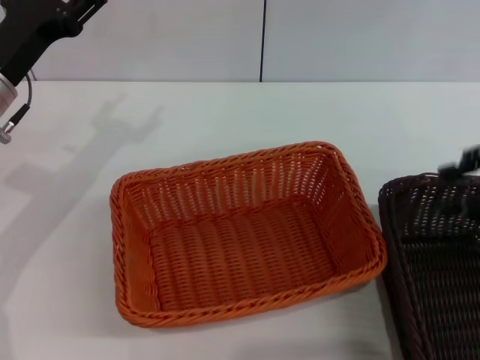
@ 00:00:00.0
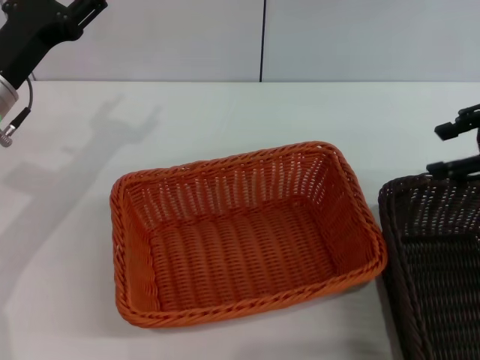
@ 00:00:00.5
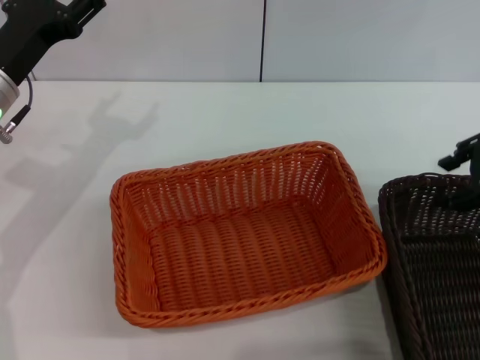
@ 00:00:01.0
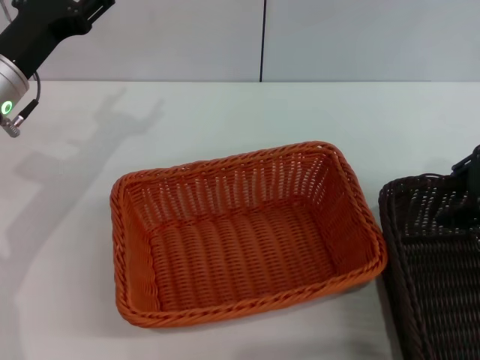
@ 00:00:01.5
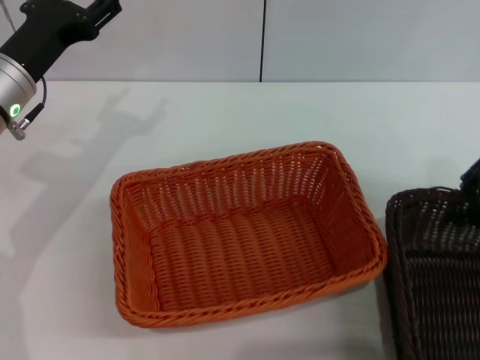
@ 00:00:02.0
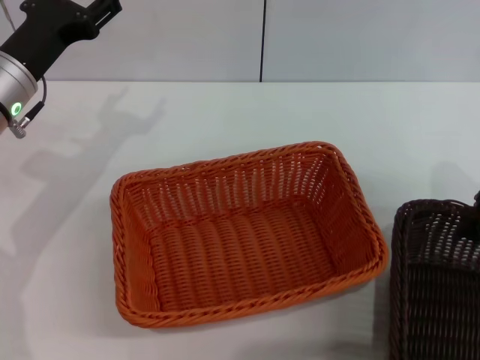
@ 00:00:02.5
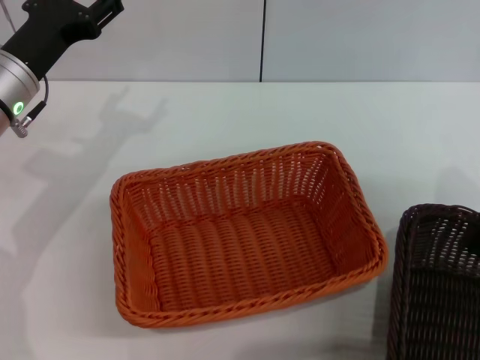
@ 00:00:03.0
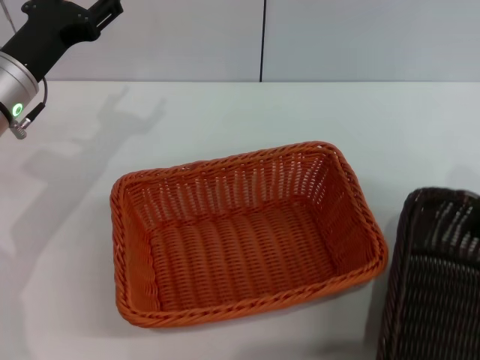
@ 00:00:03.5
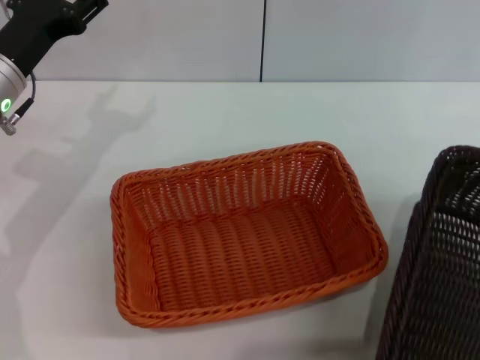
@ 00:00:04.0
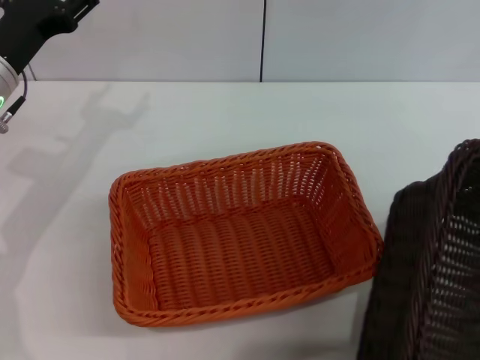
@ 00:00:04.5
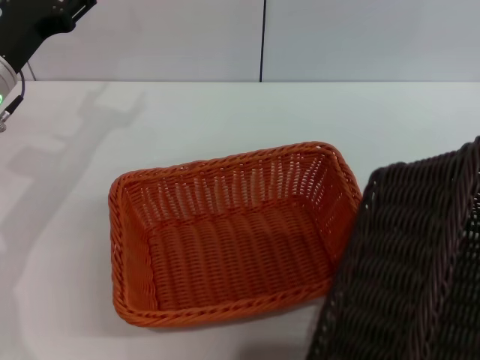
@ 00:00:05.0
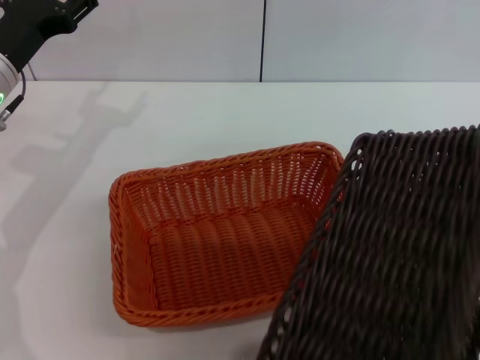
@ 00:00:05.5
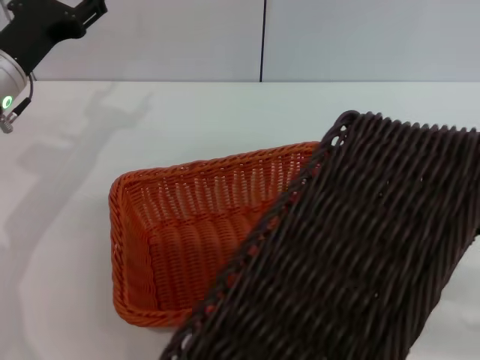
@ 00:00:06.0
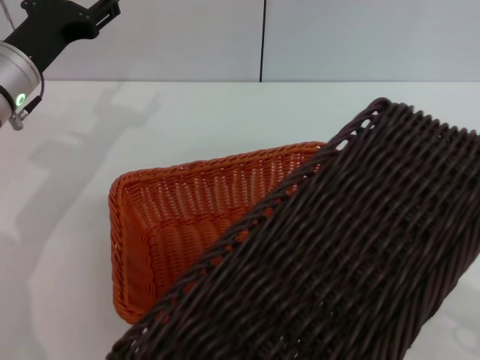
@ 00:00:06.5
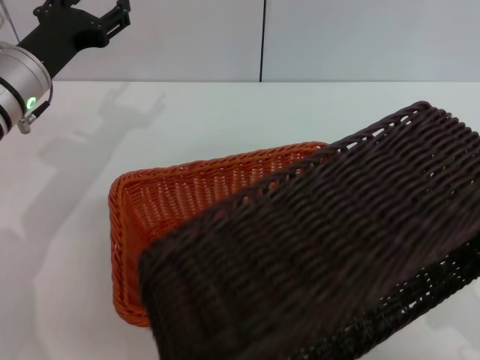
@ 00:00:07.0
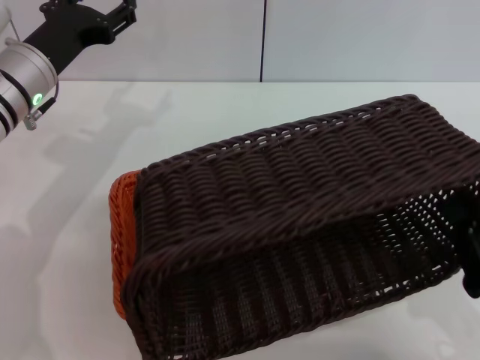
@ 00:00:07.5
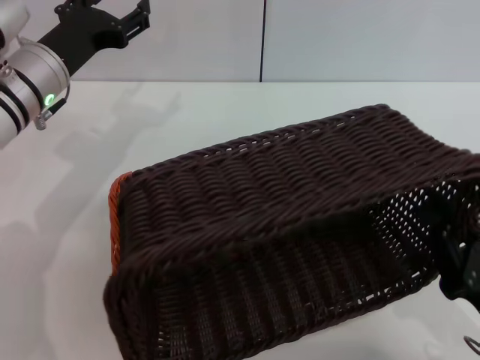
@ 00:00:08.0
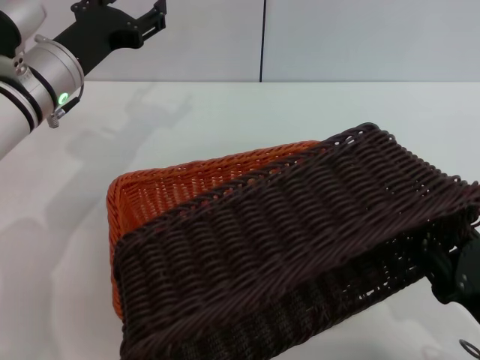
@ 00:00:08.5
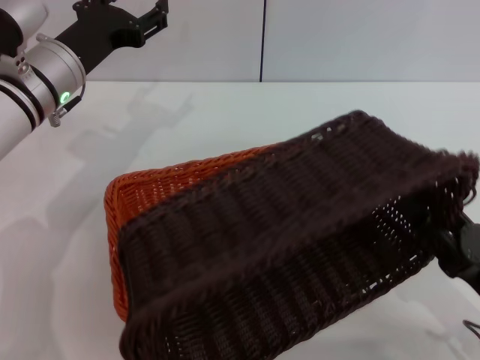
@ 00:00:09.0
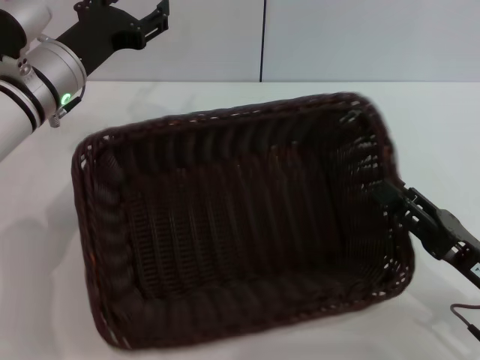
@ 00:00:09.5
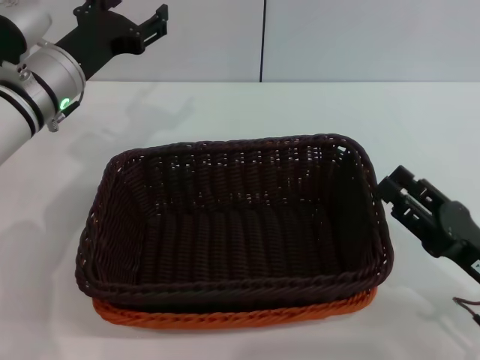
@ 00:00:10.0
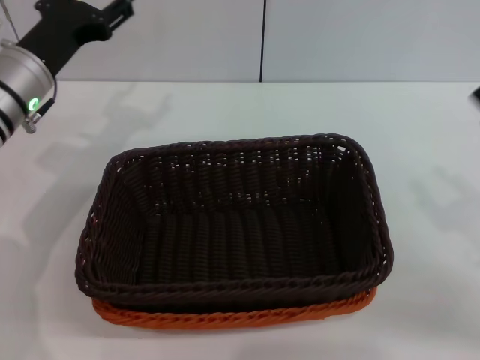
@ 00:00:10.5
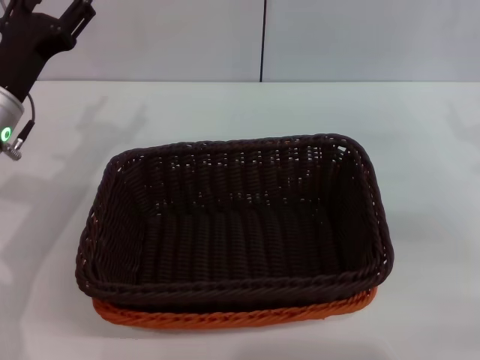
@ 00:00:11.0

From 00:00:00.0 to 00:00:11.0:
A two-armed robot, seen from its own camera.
Step, from 00:00:00.0 to 00:00:03.5: Pick up the dark basket with the right gripper.
Step, from 00:00:04.0 to 00:00:09.5: Place the dark basket on the light basket with the right gripper.
From 00:00:00.0 to 00:00:02.0: The right gripper shifts approximately 5 cm forward, and closes.
From 00:00:02.0 to 00:00:03.5: The right gripper closes its fingers.
From 00:00:03.5 to 00:00:05.5: The right gripper heads backward, covering approximately 10 cm.
From 00:00:05.5 to 00:00:07.5: The right gripper moves downward, backward and to the left, roughly 20 cm.
From 00:00:07.5 to 00:00:09.0: The right gripper opens its fingers.
From 00:00:09.0 to 00:00:11.0: The right gripper shifts some 20 cm forward, upward and to the right, while the left gripper moves backward, roughly 5 cm.

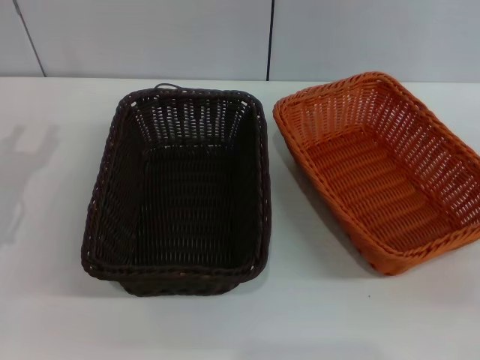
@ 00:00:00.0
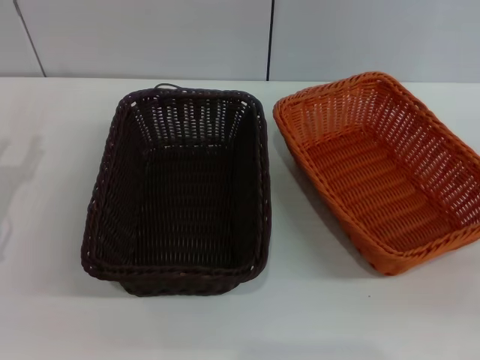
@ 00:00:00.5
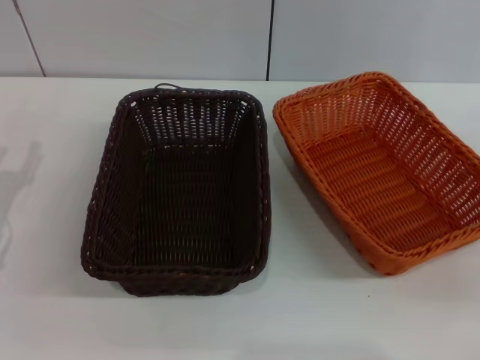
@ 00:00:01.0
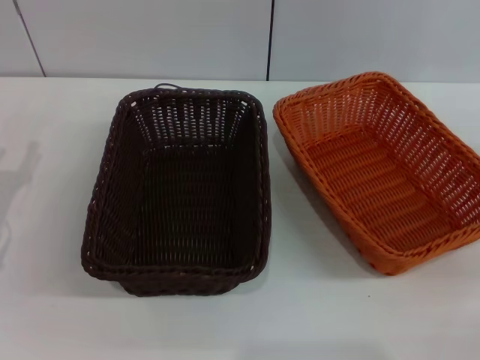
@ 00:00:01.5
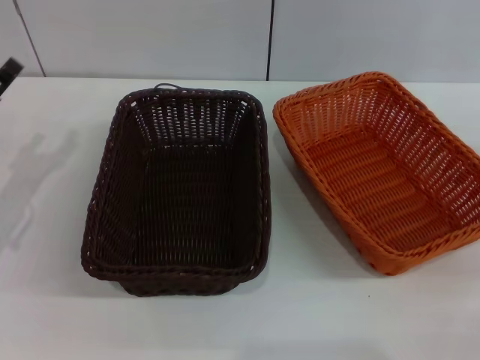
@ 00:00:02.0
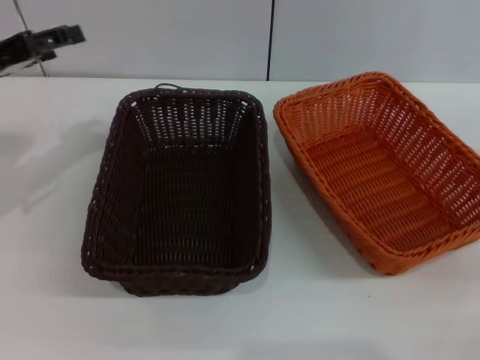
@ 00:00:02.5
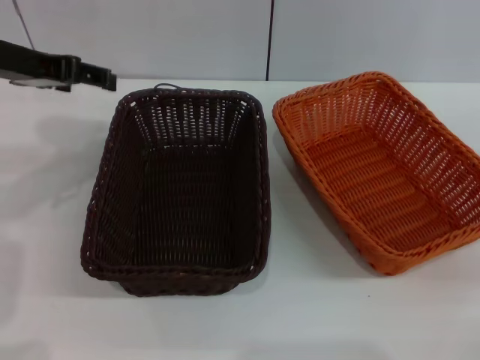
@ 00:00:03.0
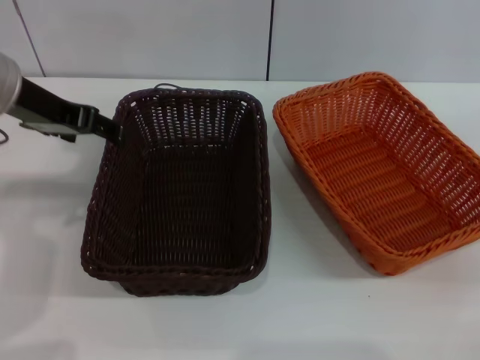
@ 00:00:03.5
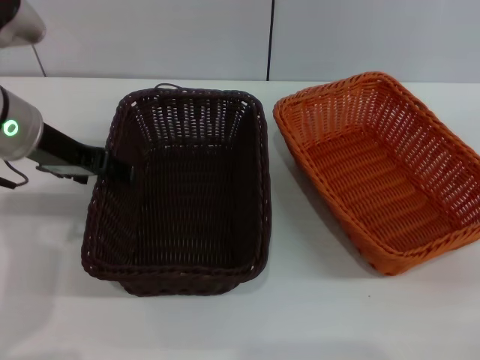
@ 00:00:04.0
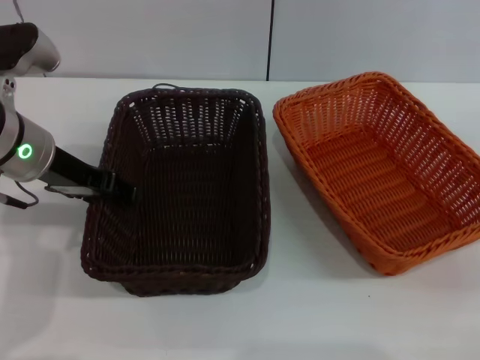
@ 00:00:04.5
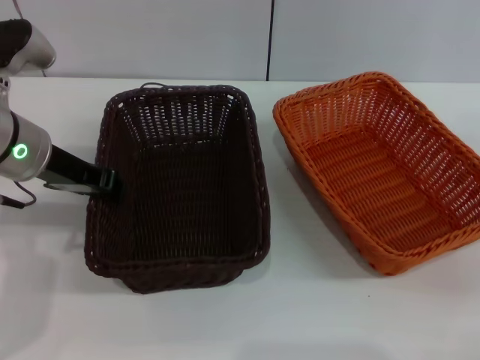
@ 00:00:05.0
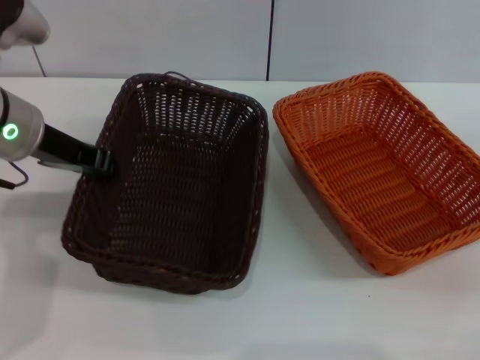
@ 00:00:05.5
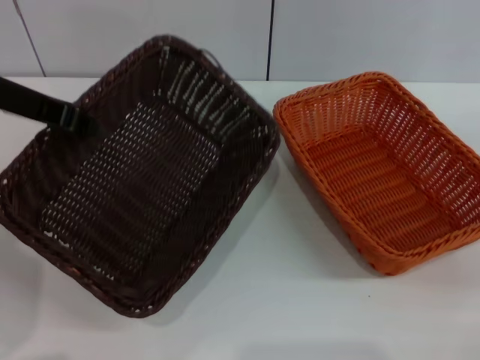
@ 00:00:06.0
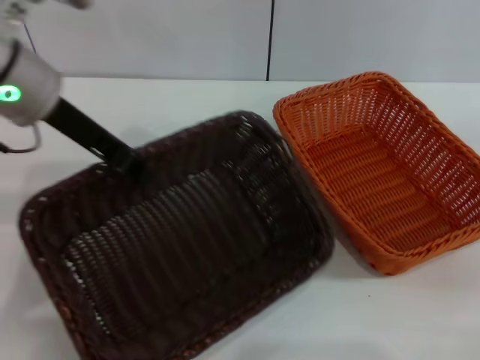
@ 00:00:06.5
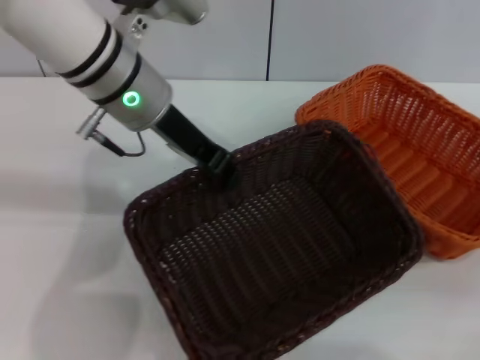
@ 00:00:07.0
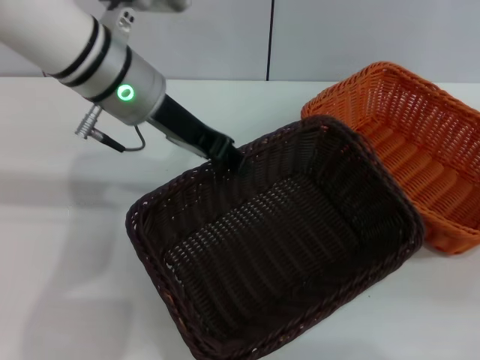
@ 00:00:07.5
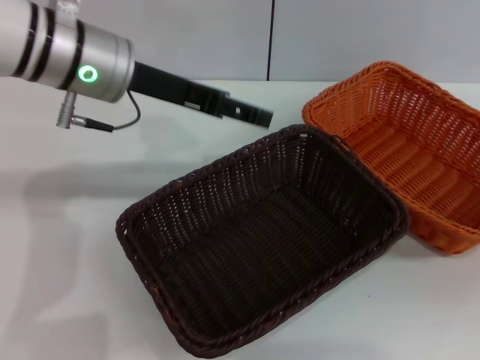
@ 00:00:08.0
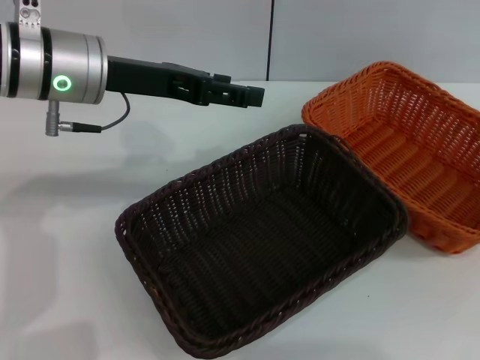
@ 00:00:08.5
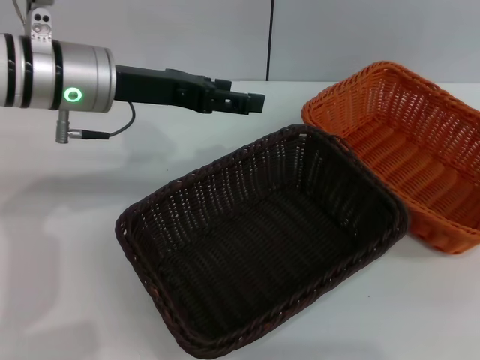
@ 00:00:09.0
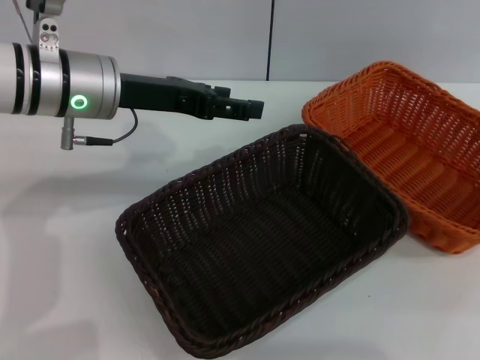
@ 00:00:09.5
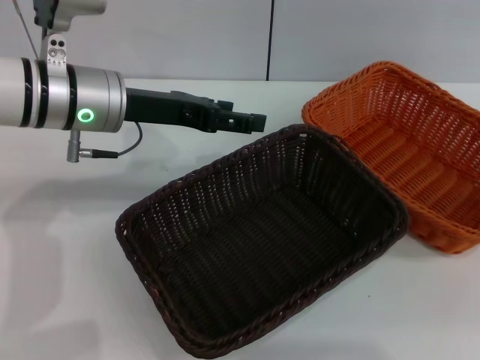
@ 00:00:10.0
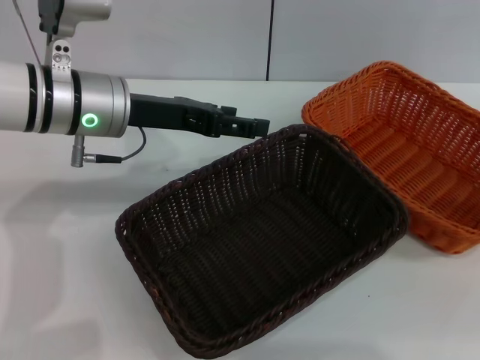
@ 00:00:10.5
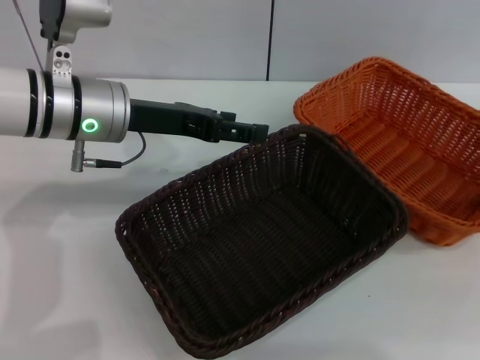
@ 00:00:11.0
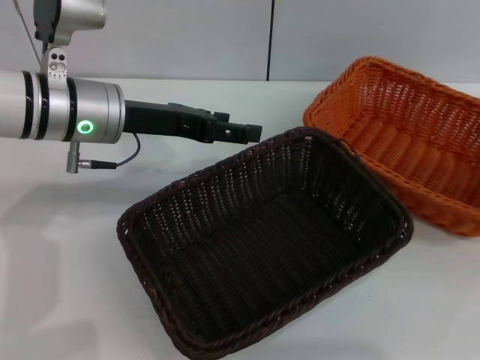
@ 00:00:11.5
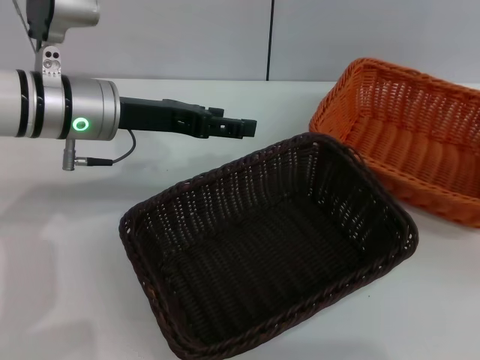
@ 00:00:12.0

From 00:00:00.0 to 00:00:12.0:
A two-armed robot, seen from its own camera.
Step, from 00:00:00.0 to 00:00:05.5: Pick up the dark basket with the left gripper.
Step, from 00:00:06.0 to 00:00:07.5: Place the dark basket in the center of view with the left gripper.
From 00:00:02.0 to 00:00:04.0: The left gripper heads upward and to the right, covering about 15 cm.
From 00:00:04.0 to 00:00:06.0: The left gripper heads upward, covering some 5 cm, and closes its fingers.
From 00:00:06.0 to 00:00:08.0: The right gripper changes place by roughly 5 cm. The left gripper heads to the right, covering roughly 10 cm, and opens its fingers.
From 00:00:08.0 to 00:00:10.0: The right gripper goes approximately 10 cm upward, while the left gripper changes place by approximately 5 cm.
From 00:00:10.0 to 00:00:12.0: The right gripper heads downward, covering about 5 cm, and closes up.

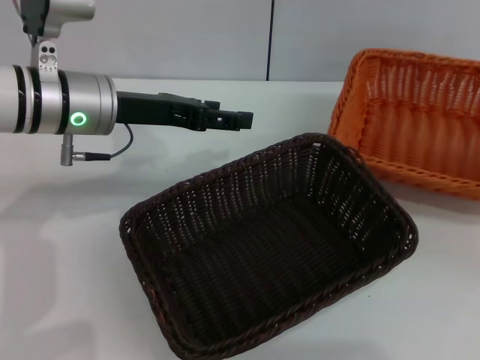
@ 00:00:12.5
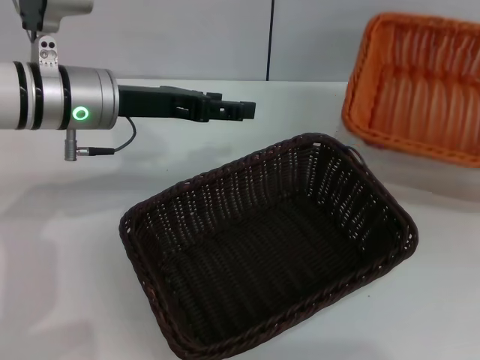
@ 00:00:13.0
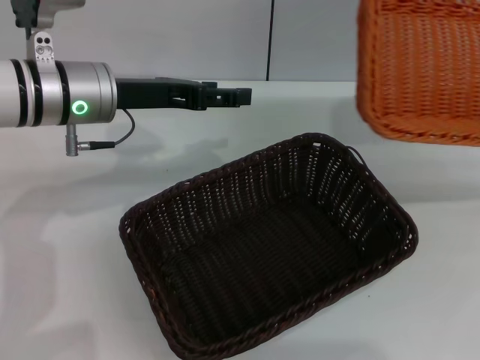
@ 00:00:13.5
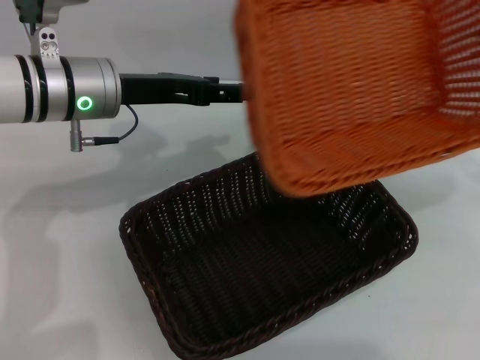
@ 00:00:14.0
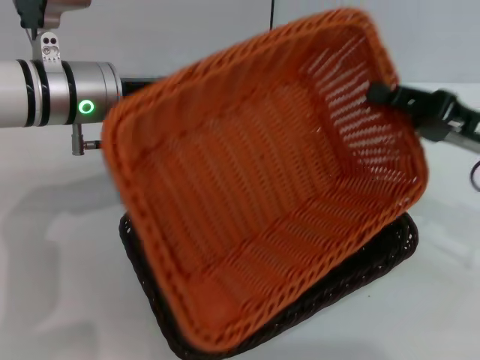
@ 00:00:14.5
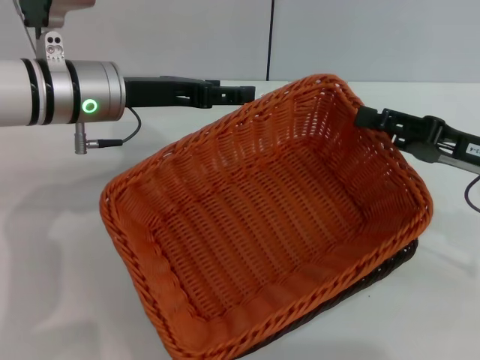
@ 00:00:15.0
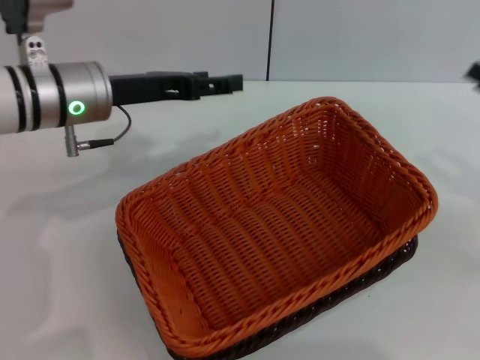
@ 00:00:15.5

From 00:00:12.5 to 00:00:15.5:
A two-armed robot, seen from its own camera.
Step, from 00:00:13.0 to 00:00:15.0: Place the light basket on the dark basket with the right gripper.
From 00:00:12.5 to 00:00:14.0: The right gripper travels to the left by roughly 10 cm.
From 00:00:14.0 to 00:00:15.5: The right gripper reaches about 5 cm to the left, then returns, and opens.
